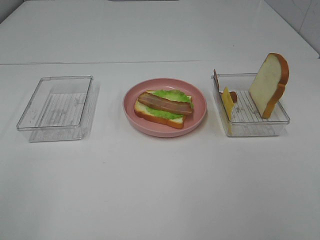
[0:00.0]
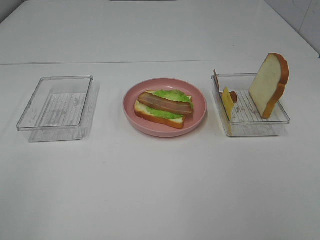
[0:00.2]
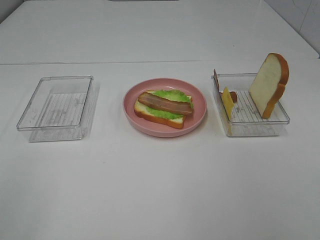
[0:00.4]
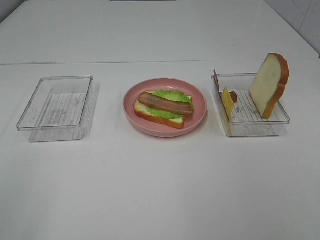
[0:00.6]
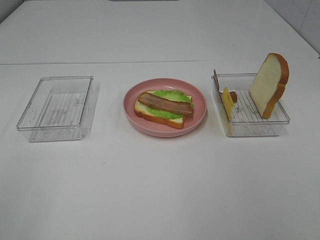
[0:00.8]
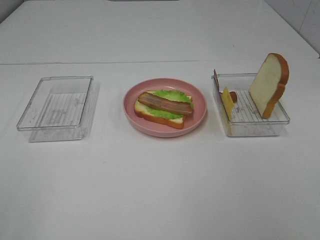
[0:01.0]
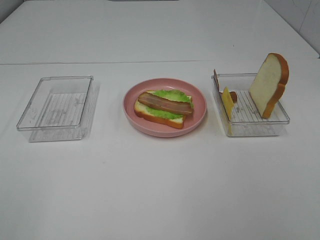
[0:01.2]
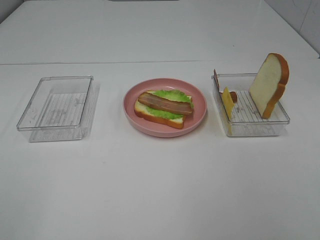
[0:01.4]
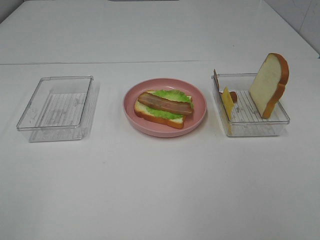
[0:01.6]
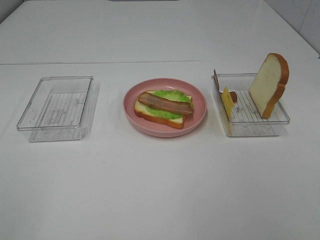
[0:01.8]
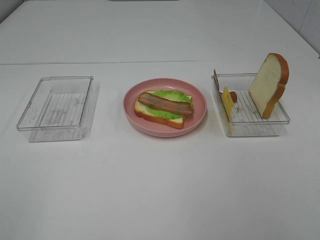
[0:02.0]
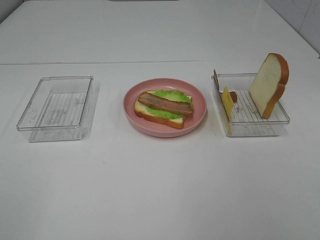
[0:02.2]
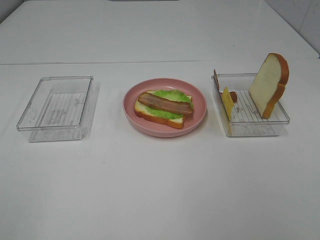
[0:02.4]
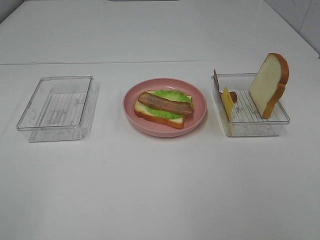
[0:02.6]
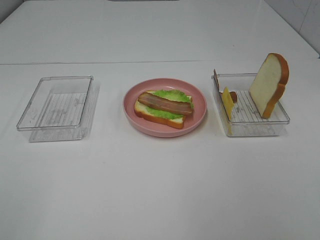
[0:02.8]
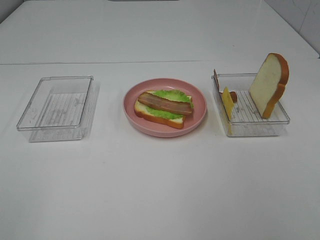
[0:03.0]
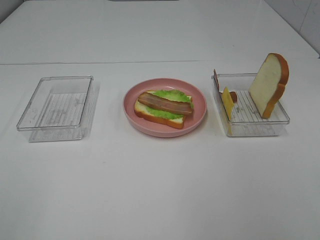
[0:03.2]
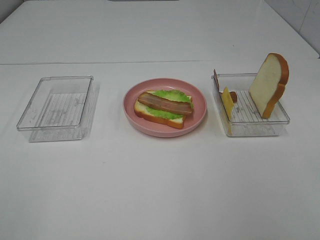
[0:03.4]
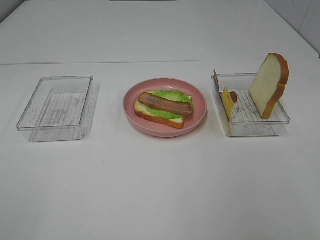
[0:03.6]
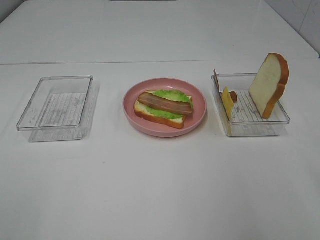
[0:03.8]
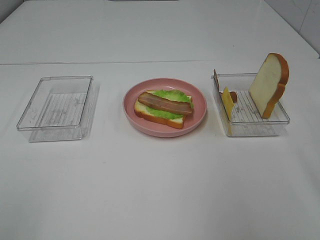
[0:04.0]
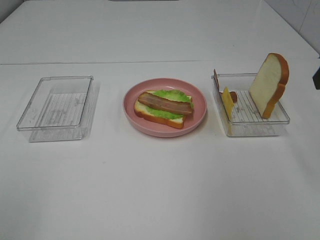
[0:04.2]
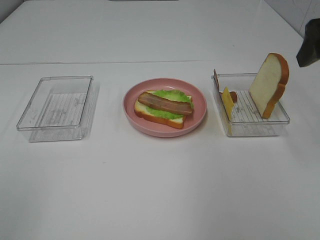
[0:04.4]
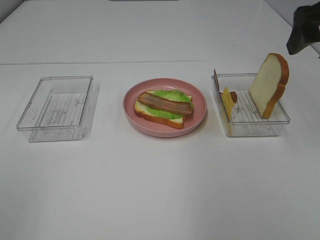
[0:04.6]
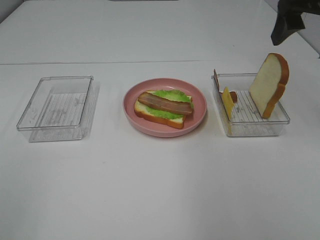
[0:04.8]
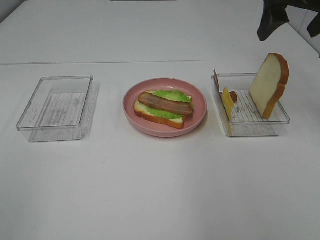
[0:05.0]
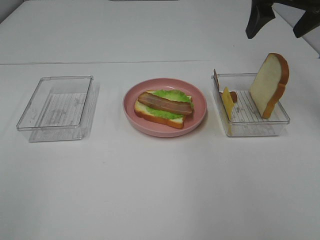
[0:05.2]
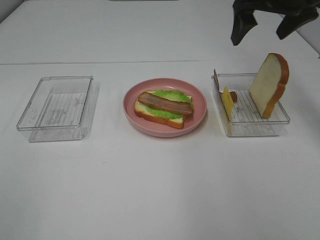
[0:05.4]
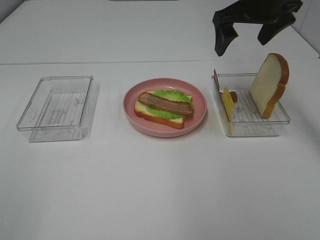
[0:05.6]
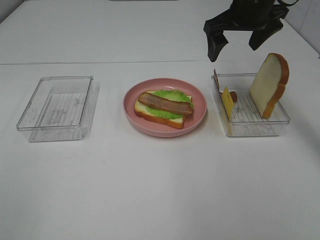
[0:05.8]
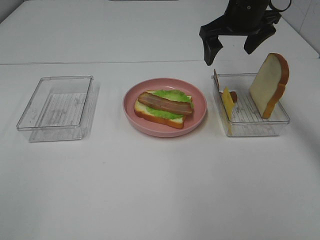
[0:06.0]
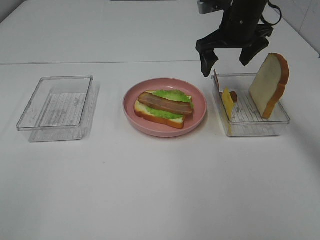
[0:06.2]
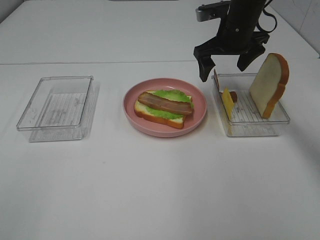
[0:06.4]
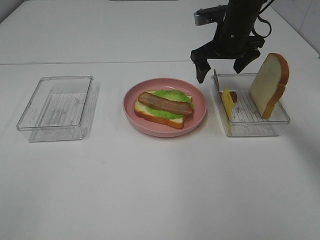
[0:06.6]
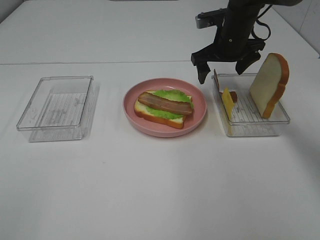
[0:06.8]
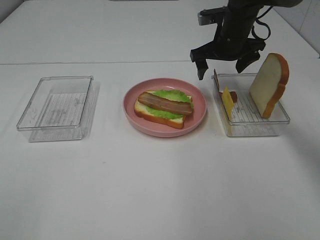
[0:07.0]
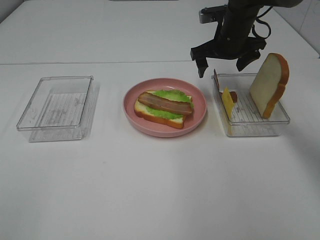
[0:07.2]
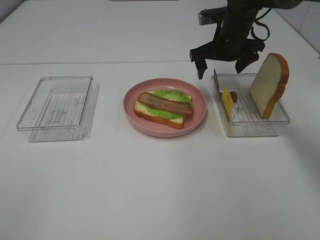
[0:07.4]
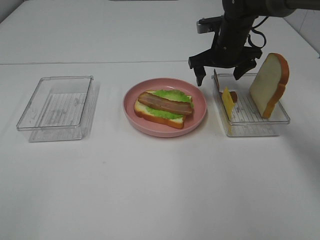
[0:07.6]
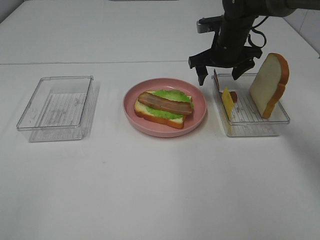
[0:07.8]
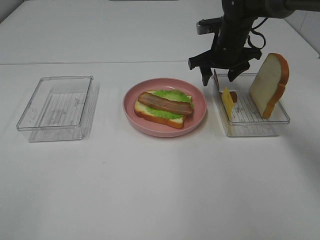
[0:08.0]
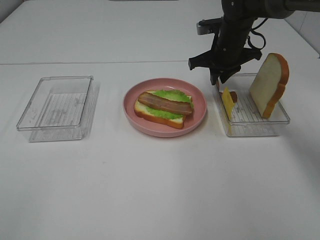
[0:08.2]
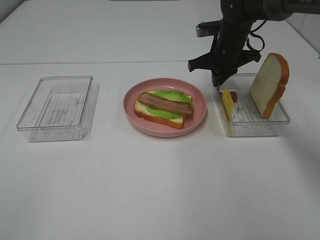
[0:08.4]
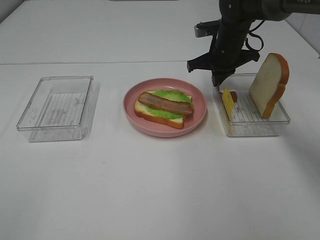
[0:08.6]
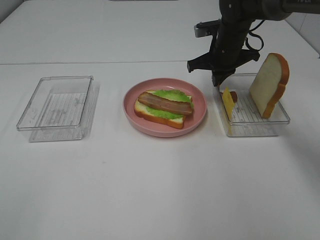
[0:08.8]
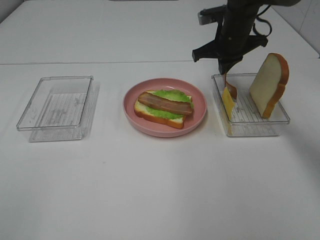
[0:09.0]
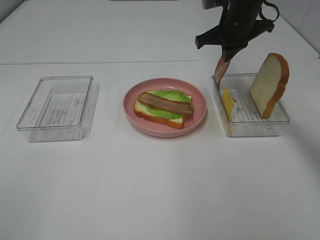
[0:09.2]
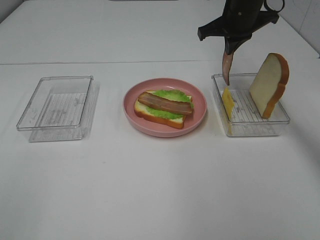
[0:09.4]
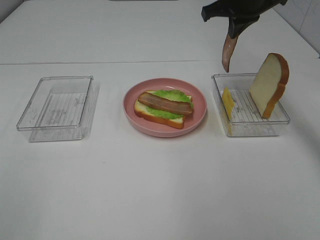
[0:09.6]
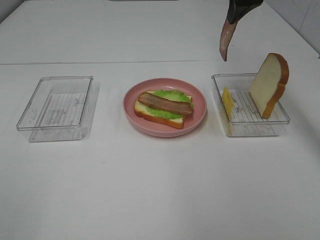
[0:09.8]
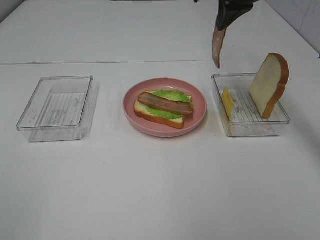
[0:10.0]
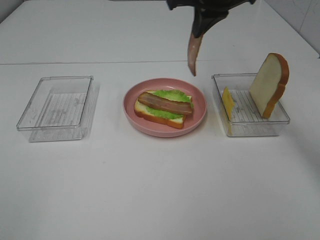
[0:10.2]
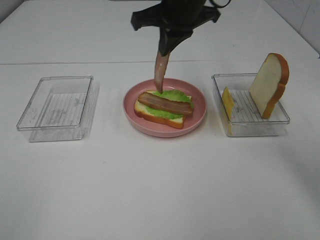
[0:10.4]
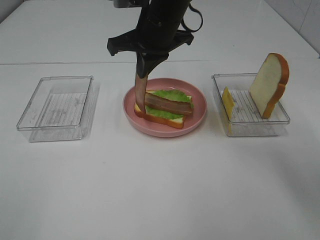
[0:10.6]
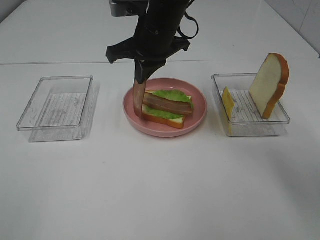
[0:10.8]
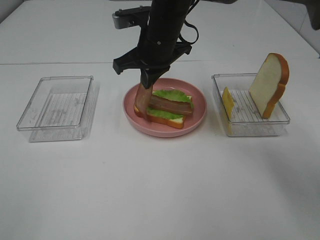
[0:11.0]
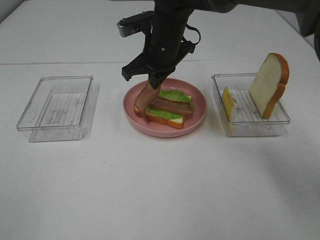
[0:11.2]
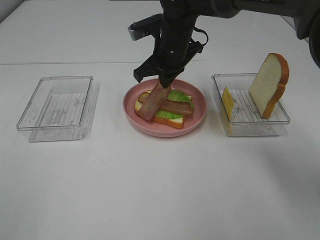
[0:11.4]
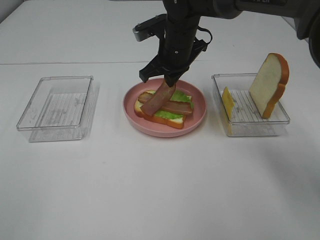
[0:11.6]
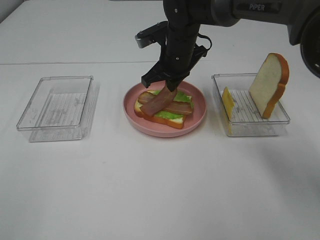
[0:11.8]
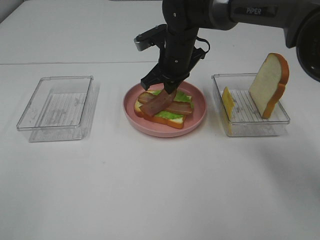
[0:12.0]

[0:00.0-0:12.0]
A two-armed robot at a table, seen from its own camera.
Task of the whole recording: Make sandwiches.
Step, 0:00.0 to 0:08.4: Right hand:grab the bacon.
0:01.6 to 0:03.0: The two grippers keep their place.
0:03.0 to 0:04.4: The right gripper moves forward, about 25 cm.
0:04.4 to 0:06.0: The right gripper is displaced forward, to the left and downward by about 20 cm.
0:06.0 to 0:07.6: The right gripper shifts about 10 cm downward.
0:07.6 to 0:09.0: The right gripper closes up.
0:09.0 to 0:10.4: The right gripper goes roughly 15 cm to the left, upward and backward.
0:10.4 to 0:12.0: The right gripper heads downward, covering about 10 cm.

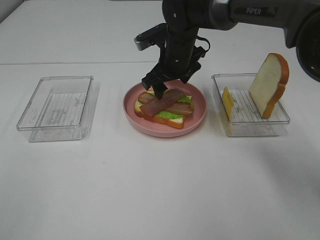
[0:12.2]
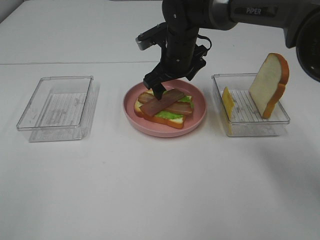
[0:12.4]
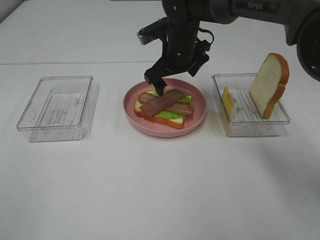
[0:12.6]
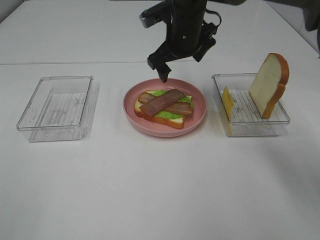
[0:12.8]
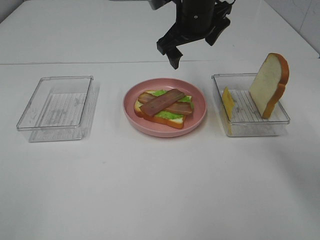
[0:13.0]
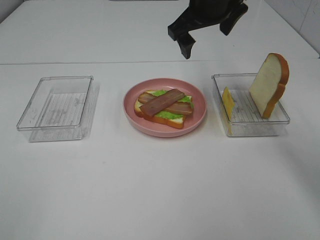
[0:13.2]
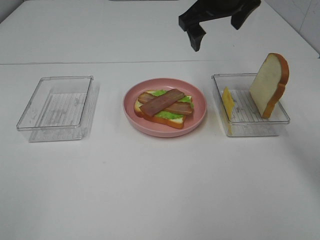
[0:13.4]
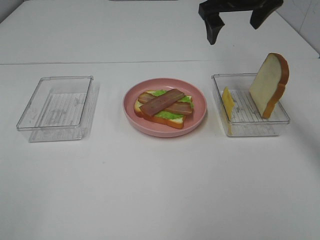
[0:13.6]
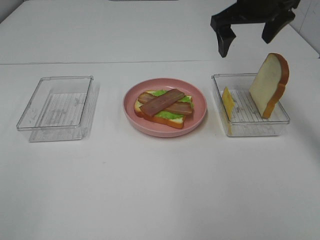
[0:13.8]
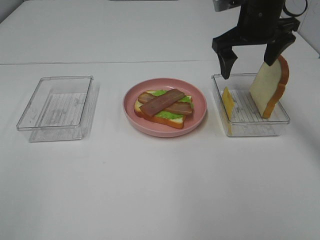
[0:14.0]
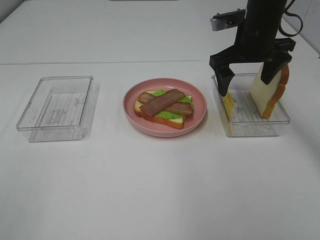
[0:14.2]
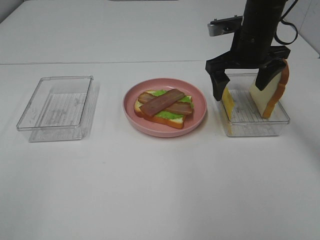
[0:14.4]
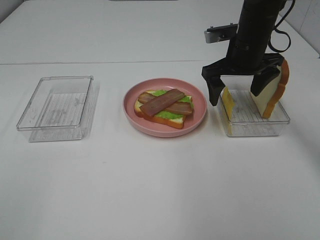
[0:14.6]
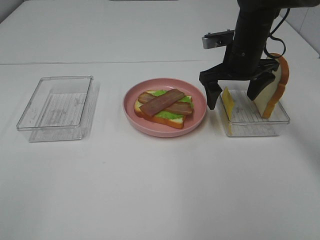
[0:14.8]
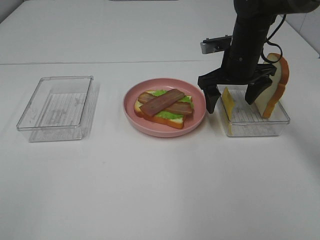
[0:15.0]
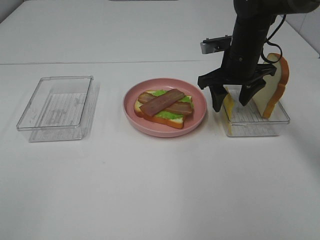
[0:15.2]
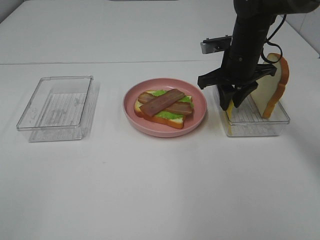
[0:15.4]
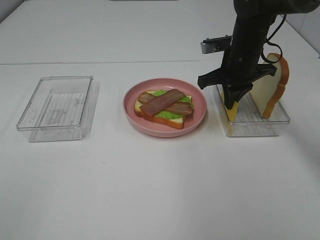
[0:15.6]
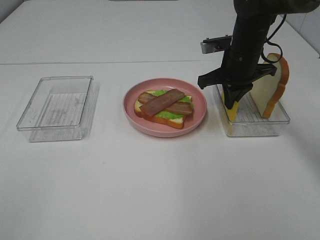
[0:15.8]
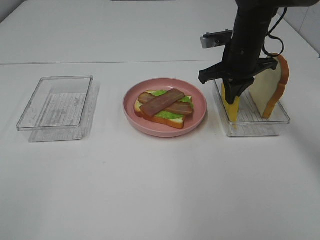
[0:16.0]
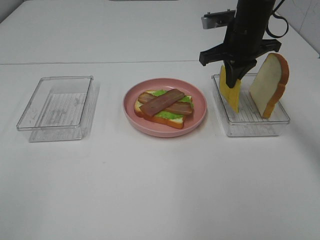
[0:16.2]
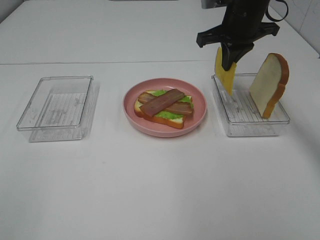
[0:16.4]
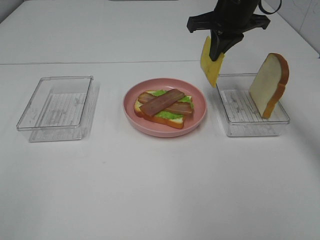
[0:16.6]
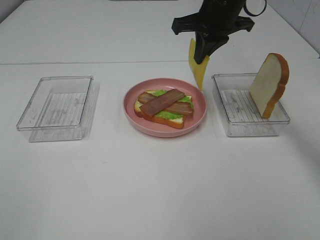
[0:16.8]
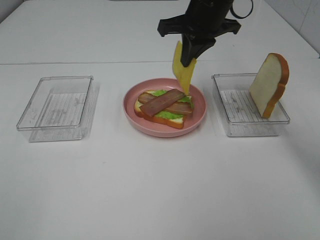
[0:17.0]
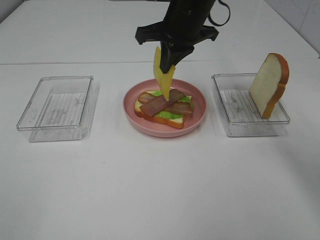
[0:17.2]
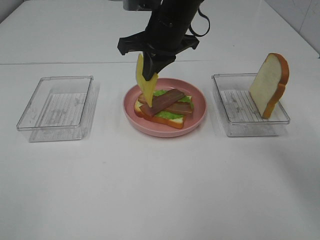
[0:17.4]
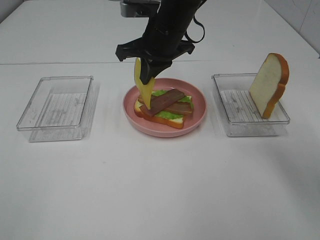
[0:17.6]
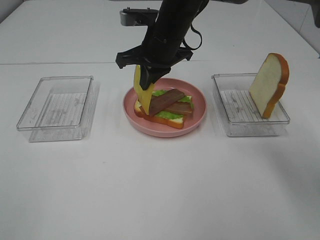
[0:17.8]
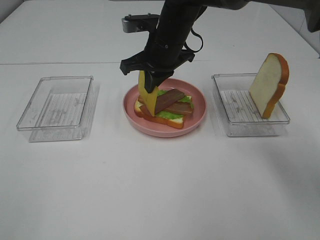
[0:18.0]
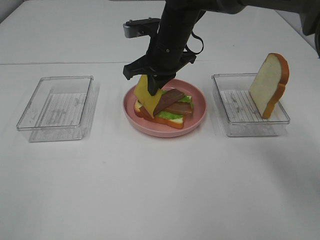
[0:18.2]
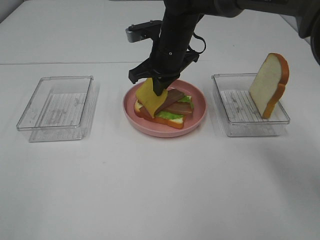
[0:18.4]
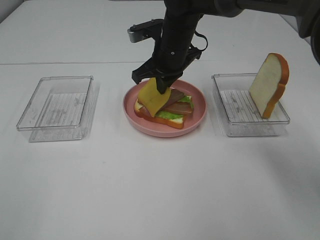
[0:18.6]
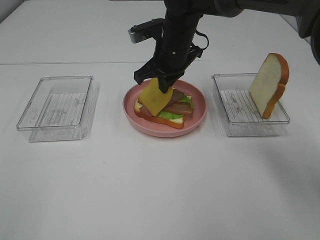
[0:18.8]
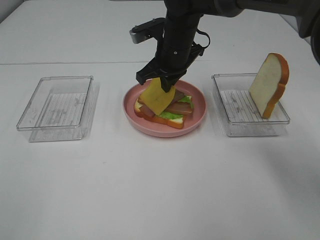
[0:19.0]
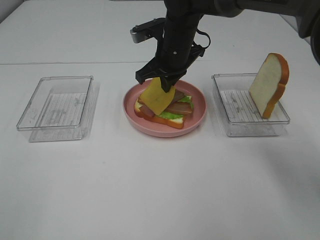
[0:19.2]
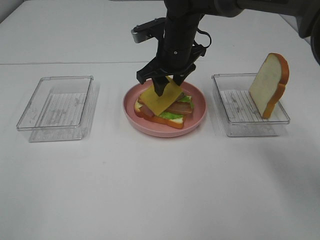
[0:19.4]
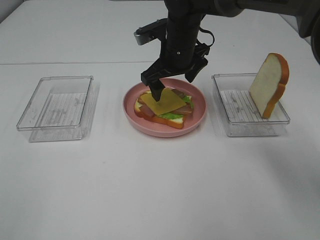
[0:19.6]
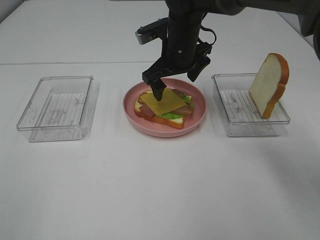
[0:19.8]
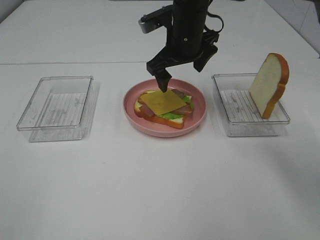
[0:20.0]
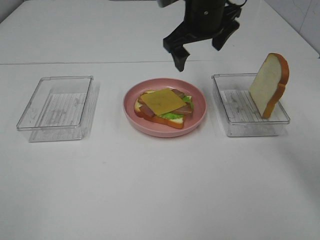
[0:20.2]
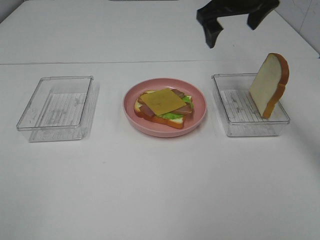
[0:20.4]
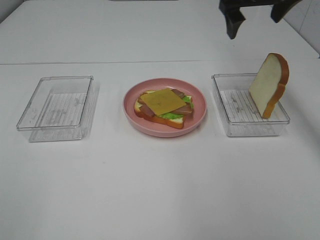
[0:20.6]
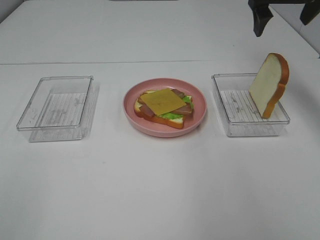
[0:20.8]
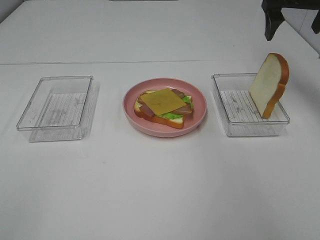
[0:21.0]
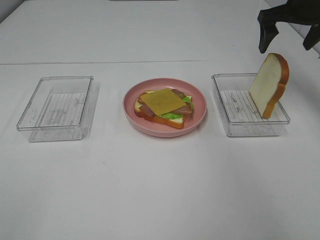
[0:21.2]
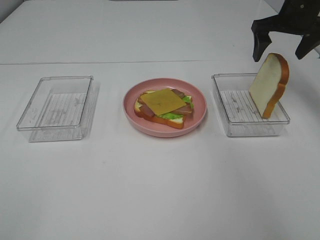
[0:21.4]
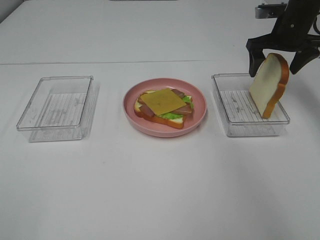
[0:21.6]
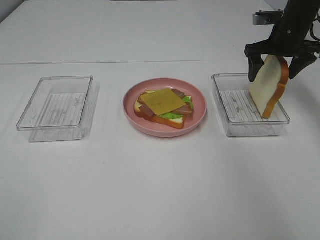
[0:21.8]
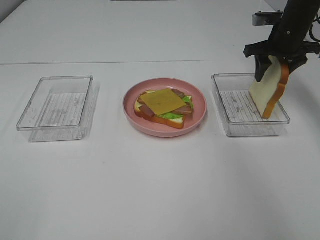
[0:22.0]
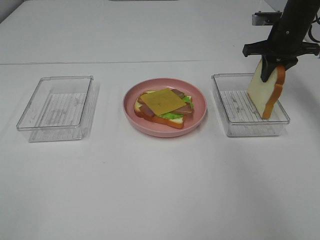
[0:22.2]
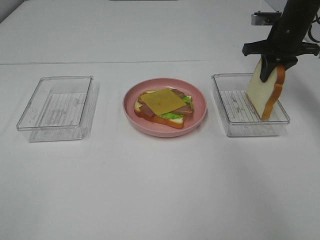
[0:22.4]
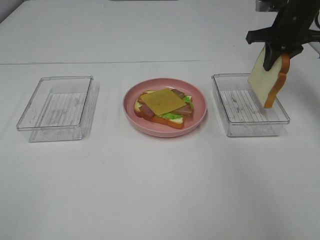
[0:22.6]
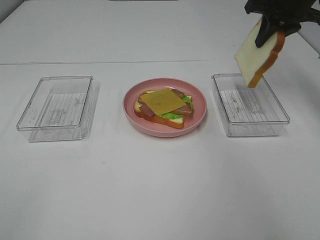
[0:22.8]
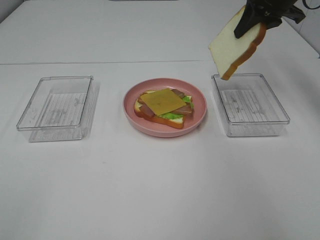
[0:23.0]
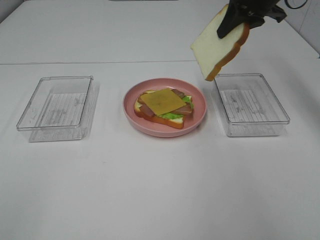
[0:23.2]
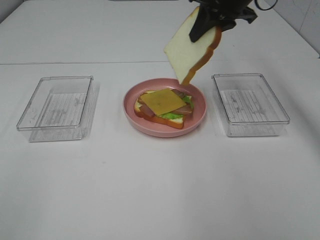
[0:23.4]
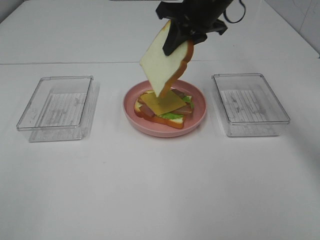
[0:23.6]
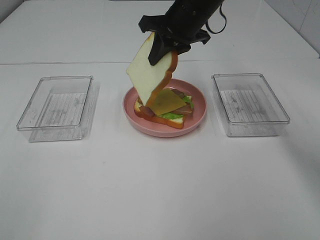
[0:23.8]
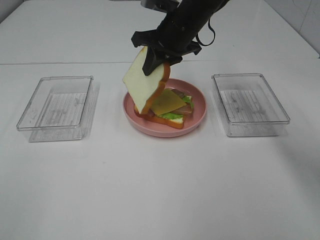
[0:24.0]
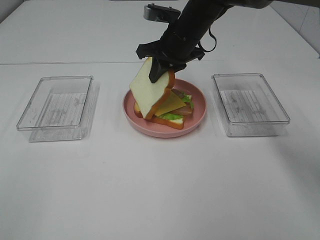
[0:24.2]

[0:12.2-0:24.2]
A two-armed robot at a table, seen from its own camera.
Task of the whole recording: Make sandwiches.
Step, 0:12.6 to 0:15.4: Right hand:grab the cheese slice.
Step, 0:15.6 to 0:19.8: Right hand:place the cheese slice on top of the bacon.
Step, 0:20.0 to 0:22.0: Right hand:grab the bread slice.
0:12.2 to 0:13.8: The right gripper heads to the right and upward, covering about 20 cm.
0:13.8 to 0:15.2: The right gripper shifts some 10 cm downward, and closes its fingers.
0:15.2 to 0:16.6: The right gripper is displaced upward by some 10 cm, and closes up.
0:16.6 to 0:18.2: The right gripper is displaced to the left and downward by some 15 cm.
0:18.2 to 0:19.8: The right gripper opens up.
0:19.8 to 0:21.2: The right gripper goes some 25 cm to the right.
0:21.2 to 0:22.6: The right gripper closes its fingers.
0:22.6 to 0:24.2: The right gripper is displaced to the left by about 20 cm.
